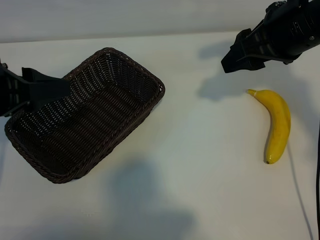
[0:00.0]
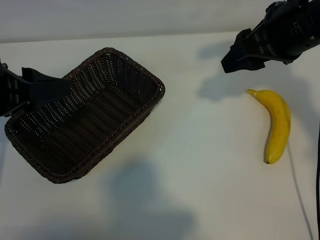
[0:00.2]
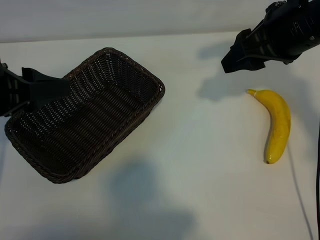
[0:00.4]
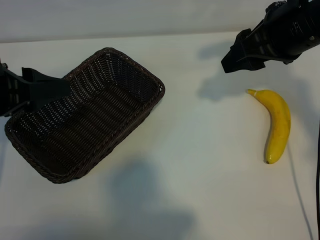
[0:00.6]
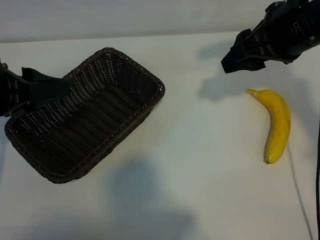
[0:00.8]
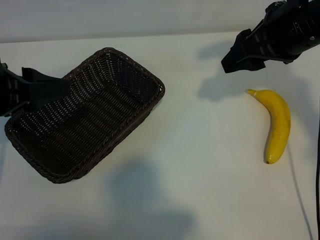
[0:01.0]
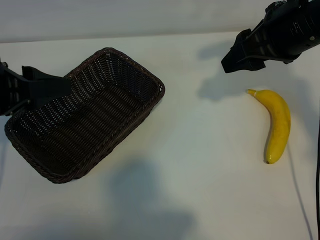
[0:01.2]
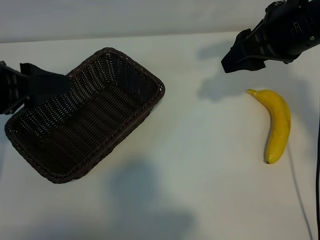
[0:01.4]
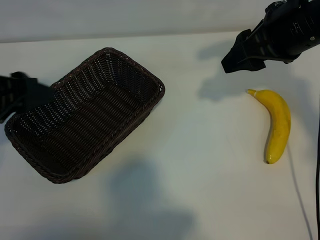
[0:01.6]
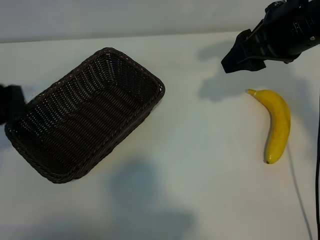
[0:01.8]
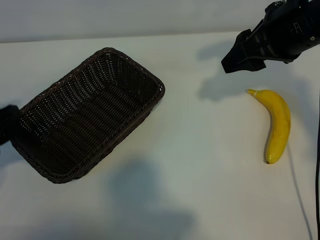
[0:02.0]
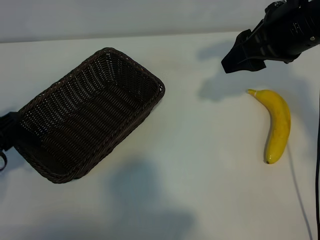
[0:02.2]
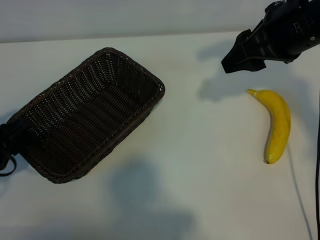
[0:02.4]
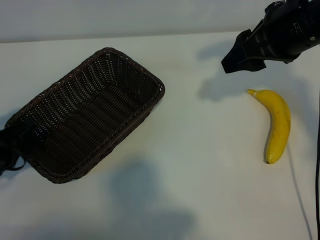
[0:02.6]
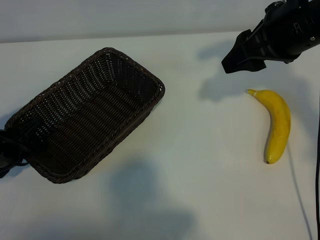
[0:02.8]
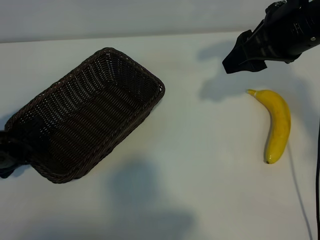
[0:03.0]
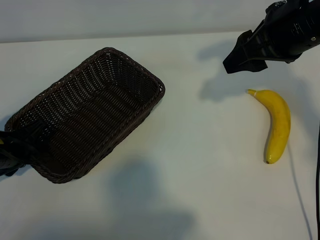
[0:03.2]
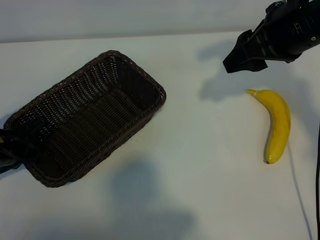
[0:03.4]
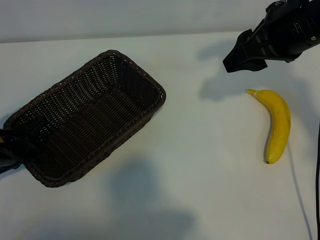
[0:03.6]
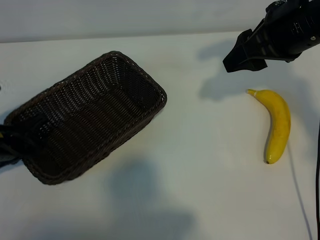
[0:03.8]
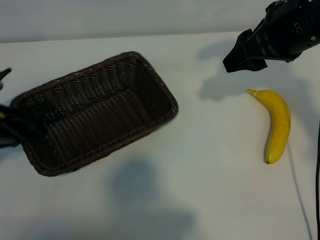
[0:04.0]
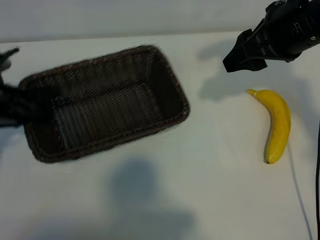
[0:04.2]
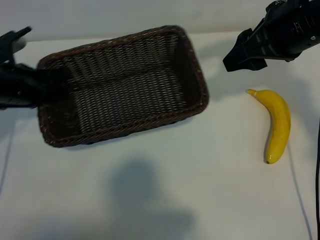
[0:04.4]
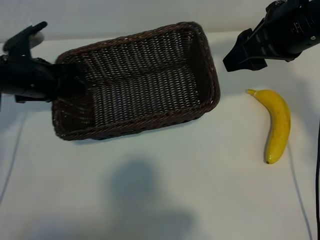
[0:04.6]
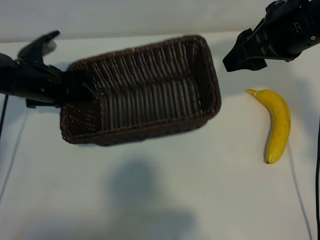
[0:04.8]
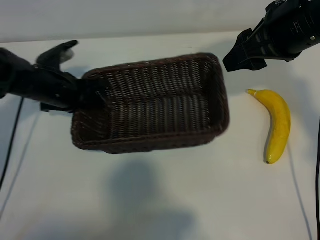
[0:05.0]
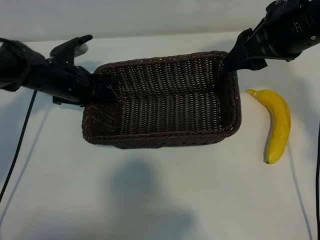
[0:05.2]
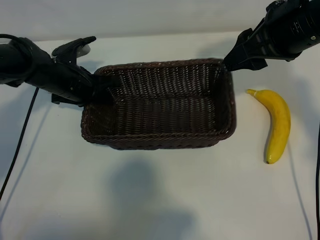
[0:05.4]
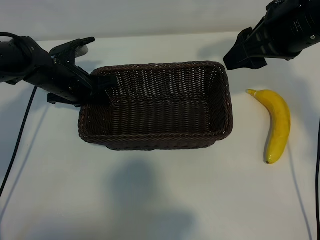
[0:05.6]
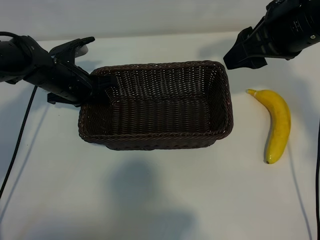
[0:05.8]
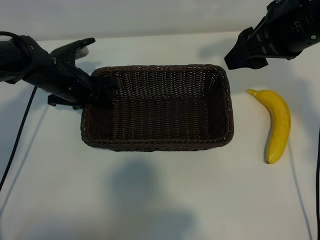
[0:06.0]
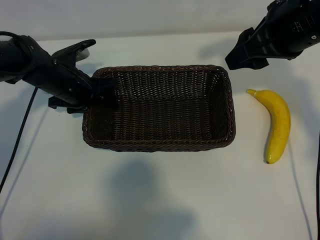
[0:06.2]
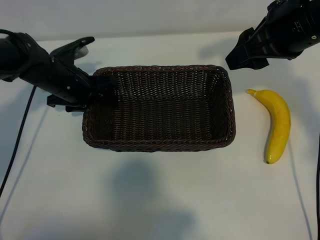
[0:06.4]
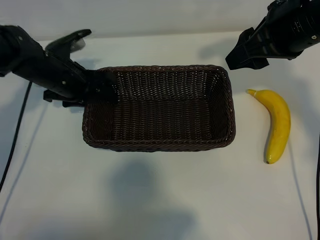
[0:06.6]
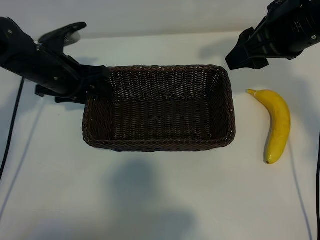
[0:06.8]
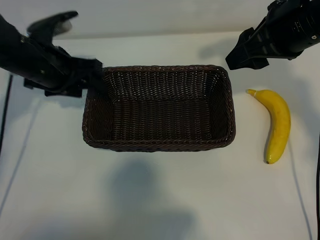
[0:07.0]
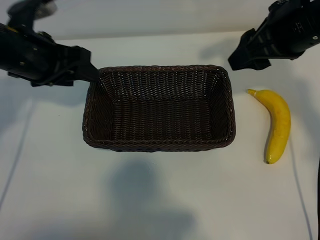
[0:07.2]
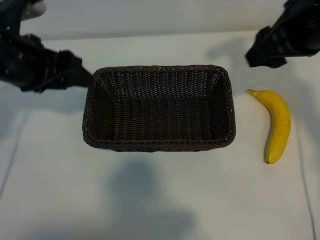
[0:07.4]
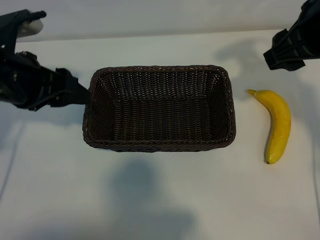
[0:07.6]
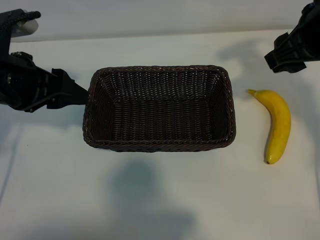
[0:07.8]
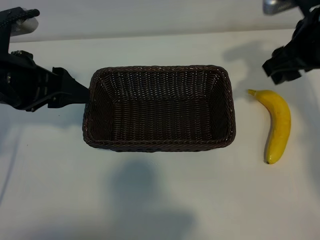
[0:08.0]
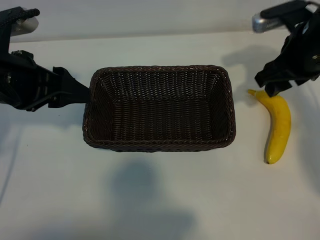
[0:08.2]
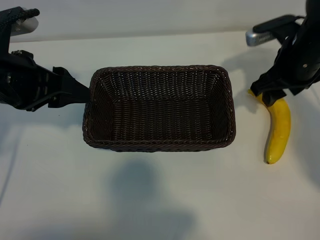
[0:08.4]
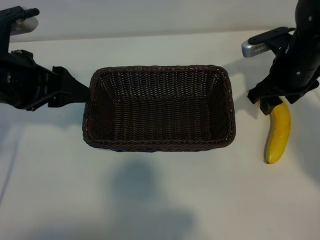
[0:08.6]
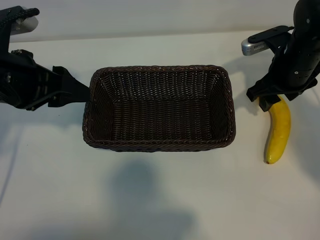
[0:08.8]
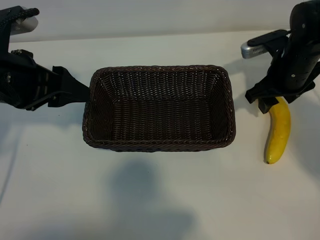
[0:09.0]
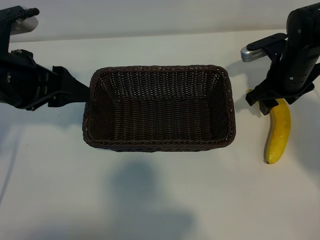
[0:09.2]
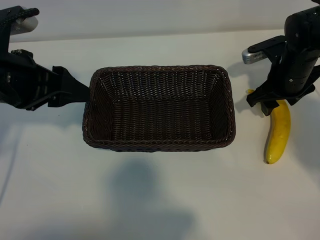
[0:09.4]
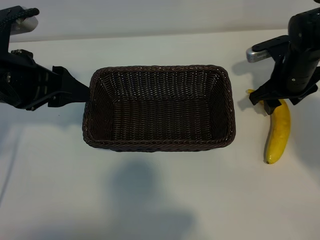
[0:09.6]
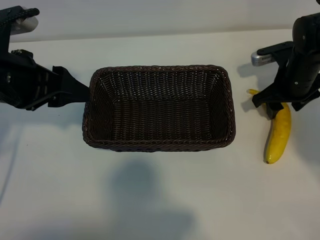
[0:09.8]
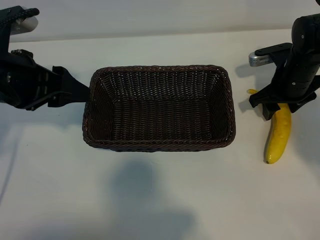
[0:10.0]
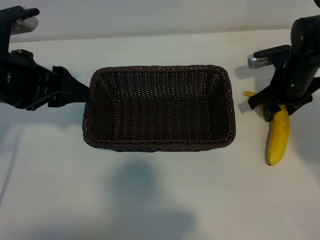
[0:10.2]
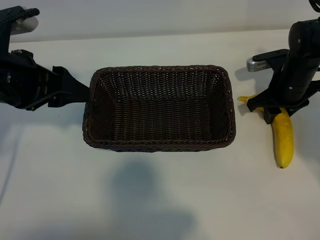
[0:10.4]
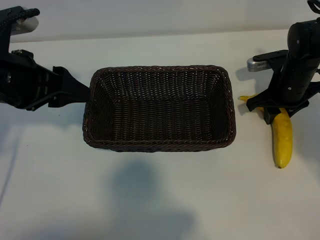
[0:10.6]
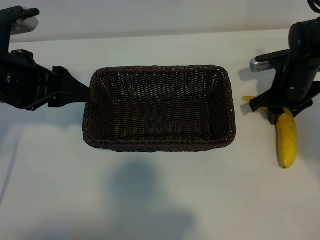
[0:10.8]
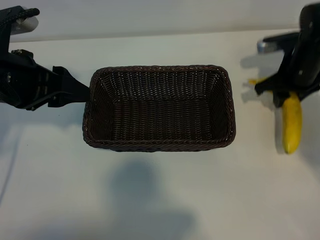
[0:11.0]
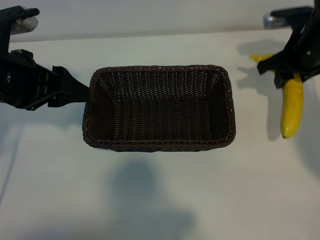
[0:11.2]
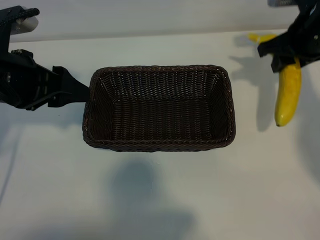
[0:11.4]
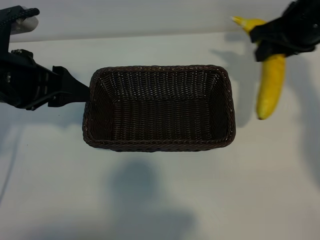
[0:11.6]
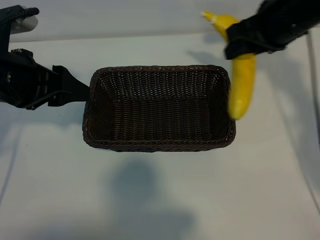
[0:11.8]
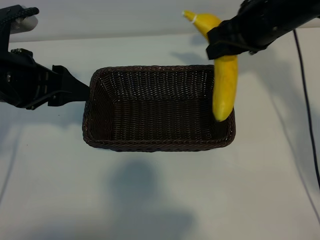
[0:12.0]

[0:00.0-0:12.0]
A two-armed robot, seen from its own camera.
Task of the whole recording: pick up the banana and put it into the basket.
Step, 0:01.0 to 0:03.6: Grasp the basket with the left gripper.
Step, 0:03.8 to 0:06.6: Place the basket in the center of the table with the left gripper.
Step, 0:06.8 to 0:10.4: Grasp the banana with right gripper.
